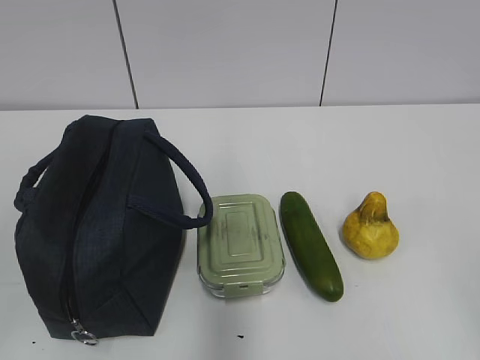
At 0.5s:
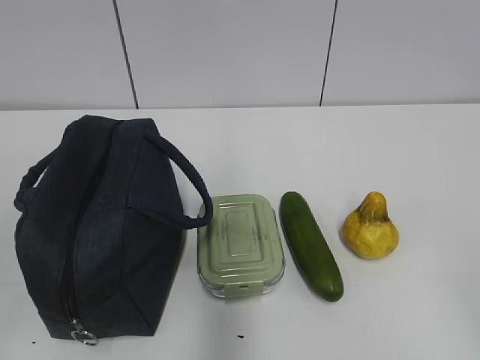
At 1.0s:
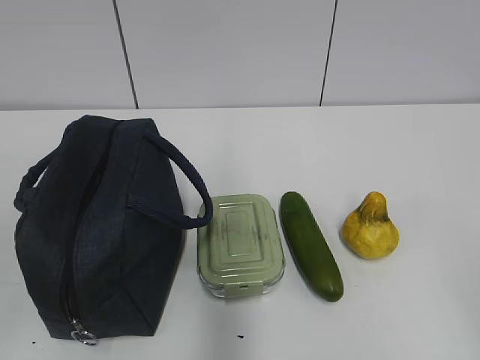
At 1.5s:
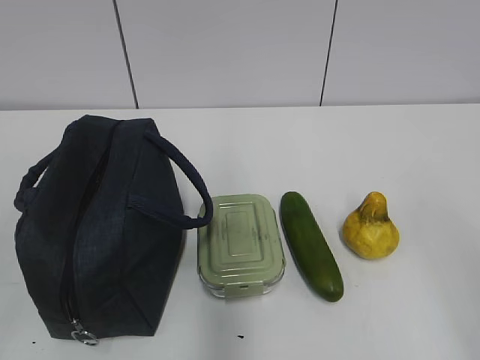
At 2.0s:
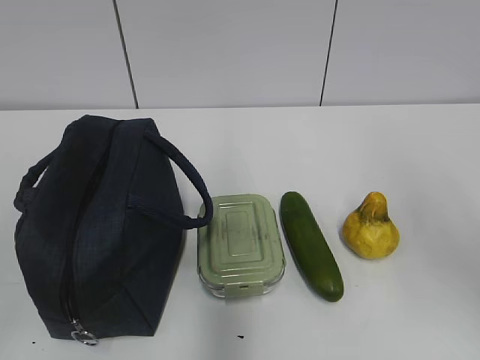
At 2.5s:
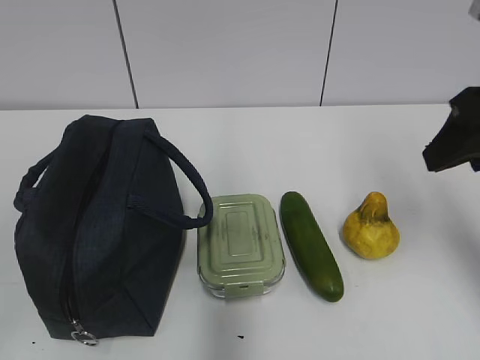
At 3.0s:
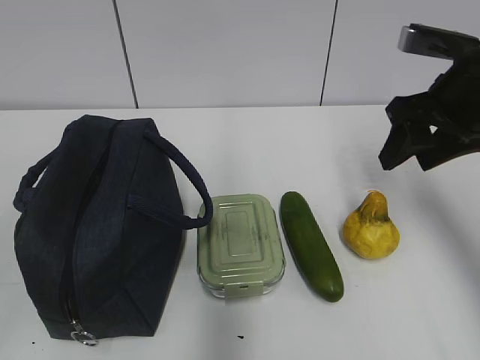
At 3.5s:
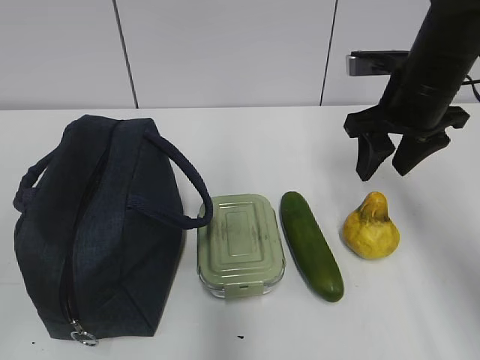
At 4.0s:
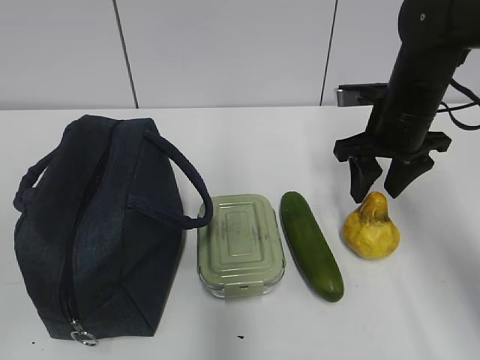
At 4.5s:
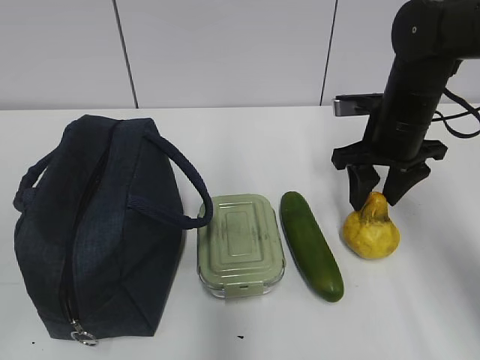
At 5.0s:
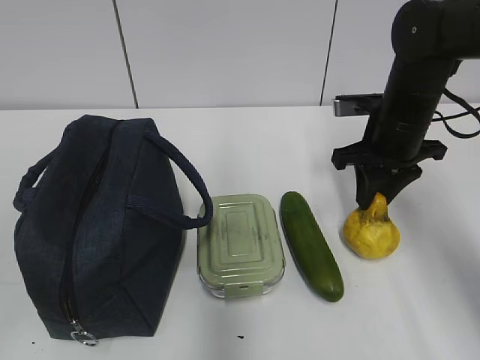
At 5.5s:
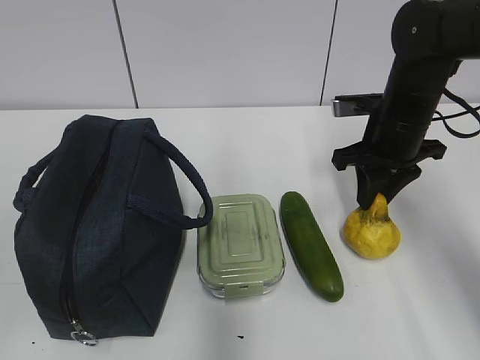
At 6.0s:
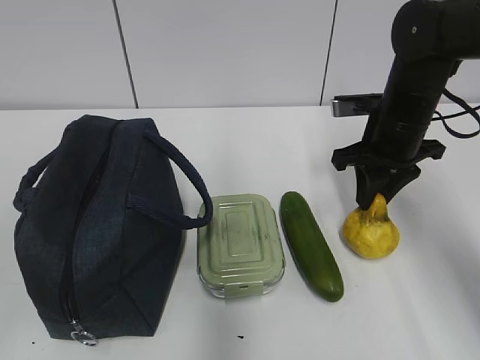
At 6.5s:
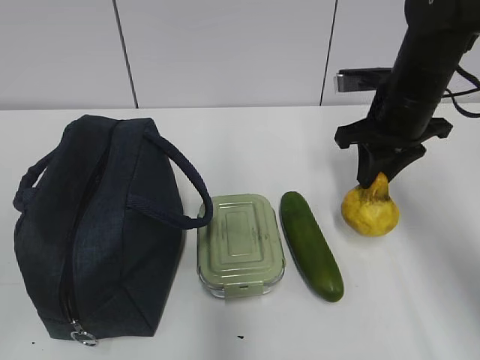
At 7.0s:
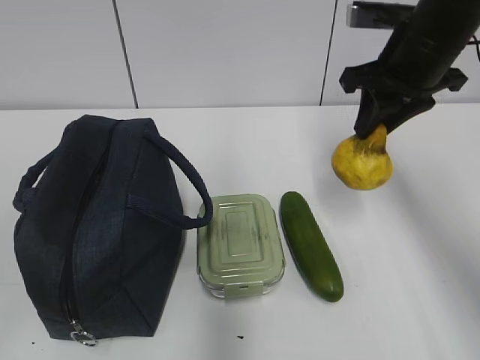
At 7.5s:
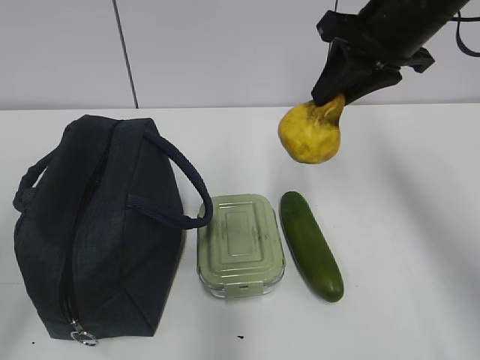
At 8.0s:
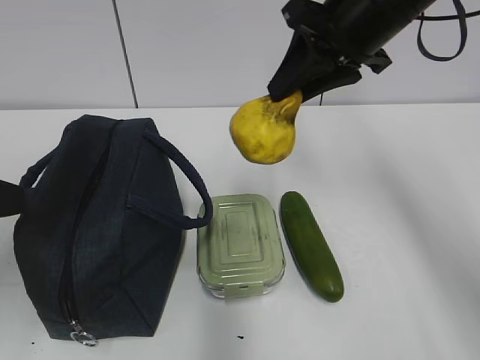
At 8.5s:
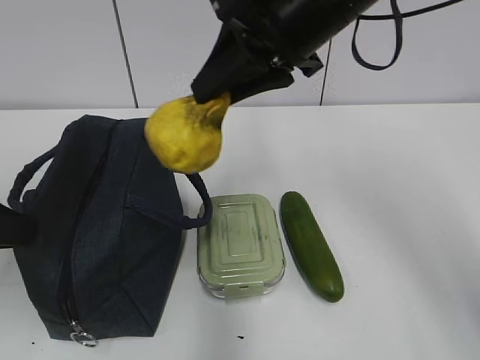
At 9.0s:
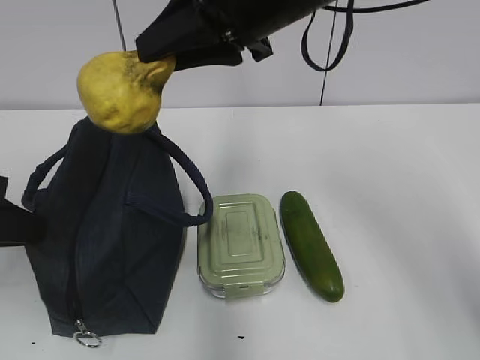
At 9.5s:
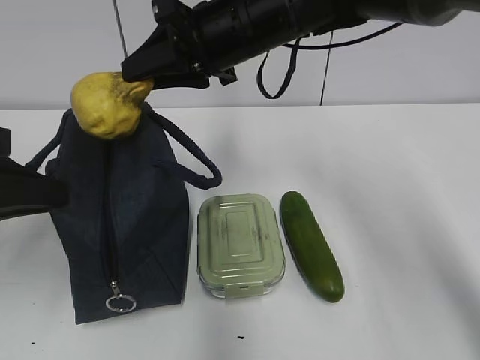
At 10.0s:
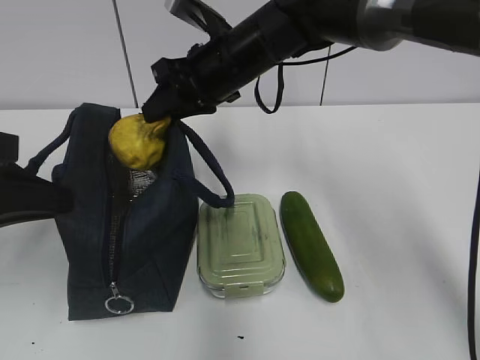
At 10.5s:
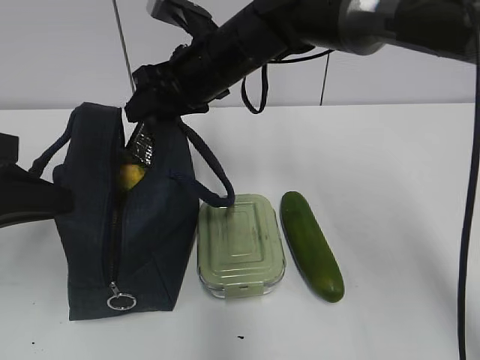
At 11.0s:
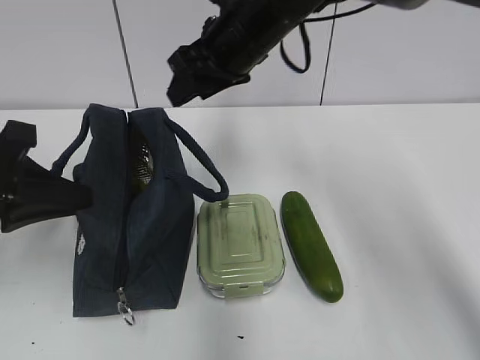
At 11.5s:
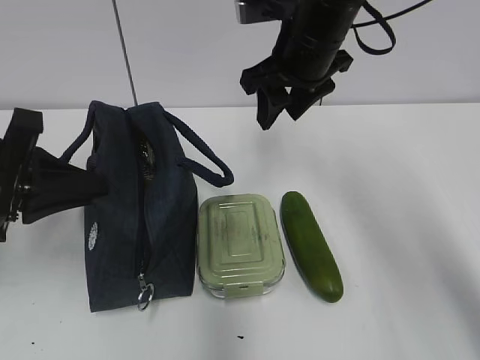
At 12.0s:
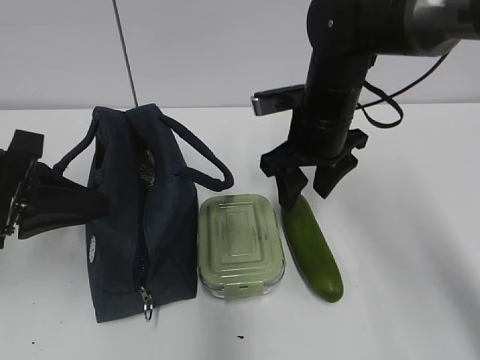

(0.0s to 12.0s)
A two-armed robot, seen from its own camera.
2.0s - 4.0s: The right gripper travels forward and downward by approximately 30 cm.
4.0s - 6.0s: The right gripper closes up.
6.0s - 8.0s: The right gripper heads upward and to the left, covering about 15 cm. The left gripper travels forward by approximately 15 cm.
8.0s - 10.0s: The left gripper ends up approximately 5 cm from where it was, and closes its fingers, while the right gripper shifts about 15 cm to the left, downward and forward.
10.0s - 12.0s: The right gripper goes approximately 10 cm to the right, and opens up.

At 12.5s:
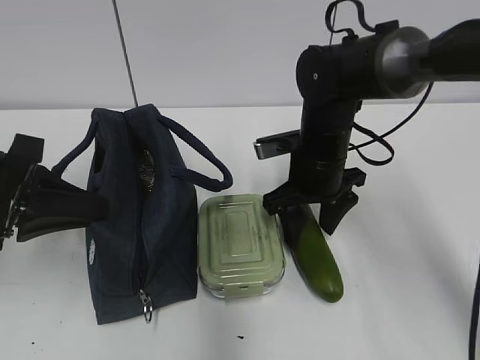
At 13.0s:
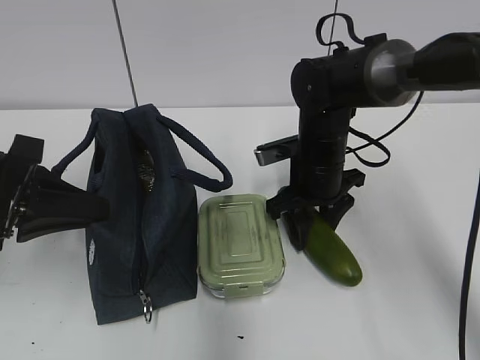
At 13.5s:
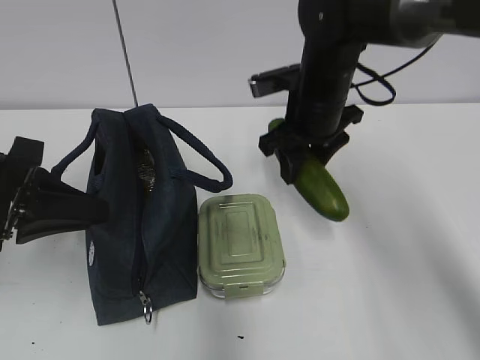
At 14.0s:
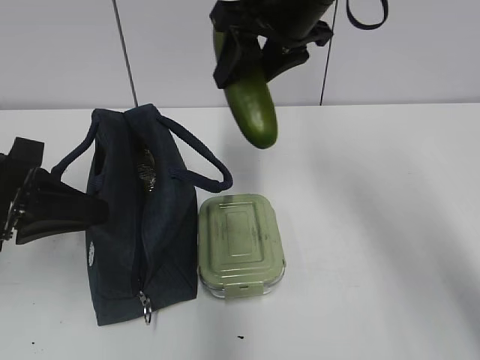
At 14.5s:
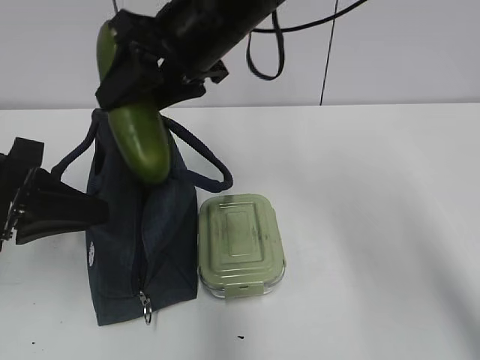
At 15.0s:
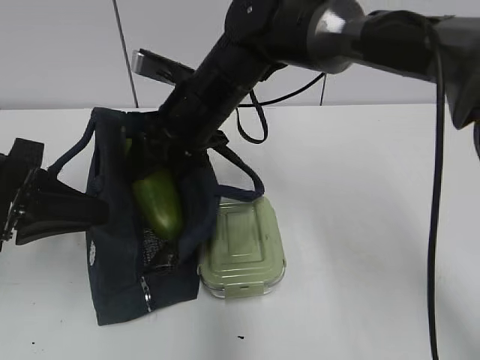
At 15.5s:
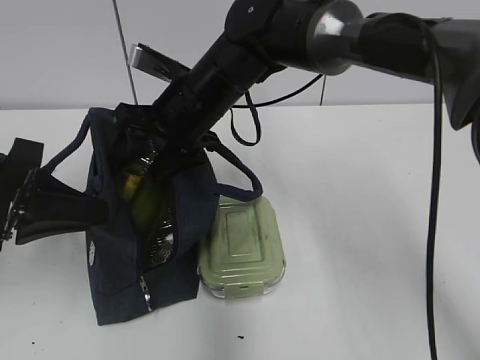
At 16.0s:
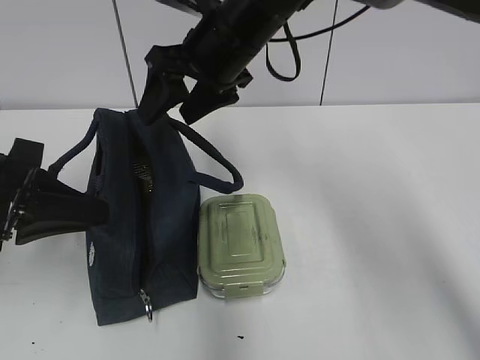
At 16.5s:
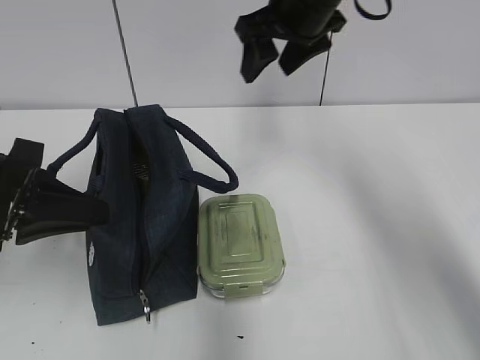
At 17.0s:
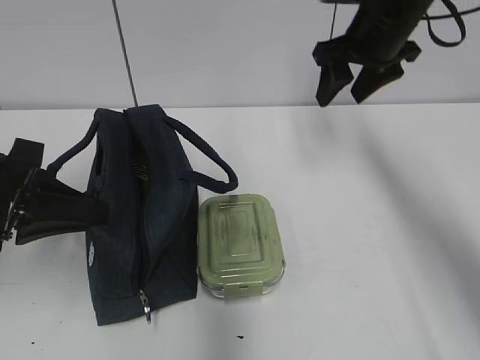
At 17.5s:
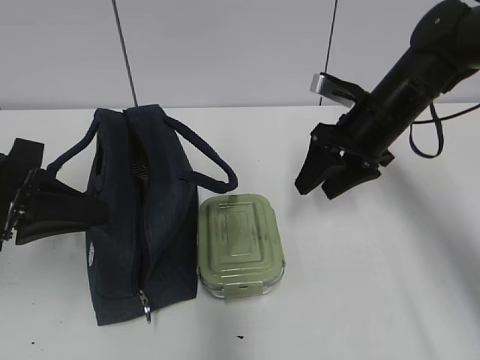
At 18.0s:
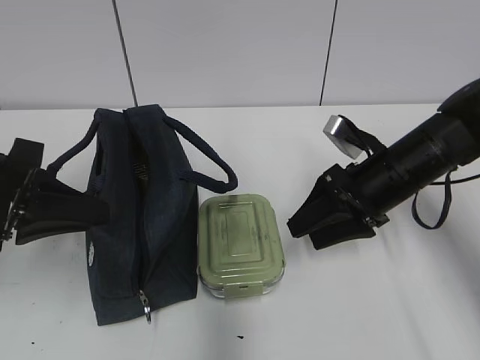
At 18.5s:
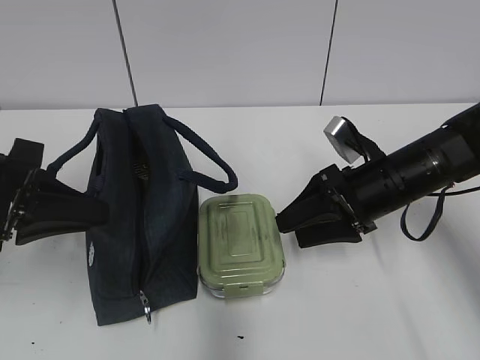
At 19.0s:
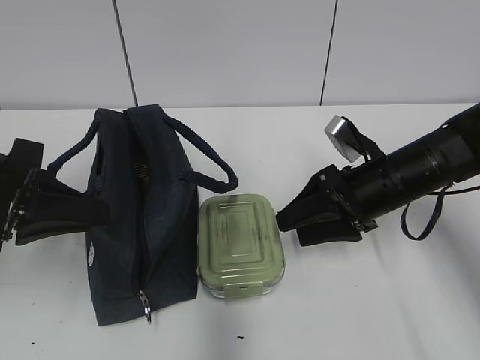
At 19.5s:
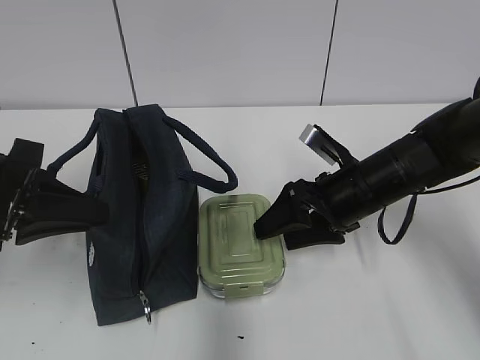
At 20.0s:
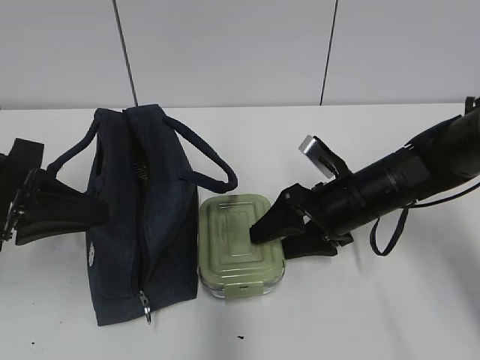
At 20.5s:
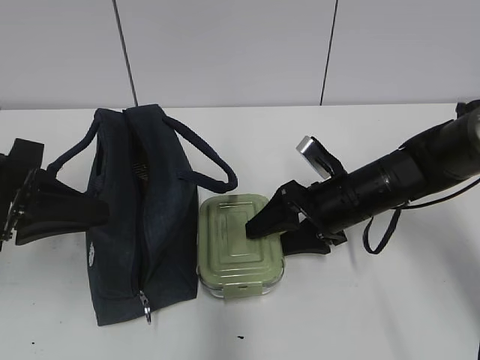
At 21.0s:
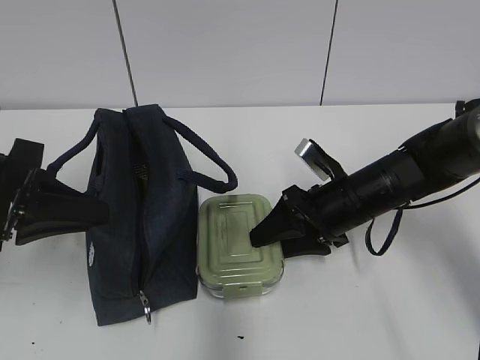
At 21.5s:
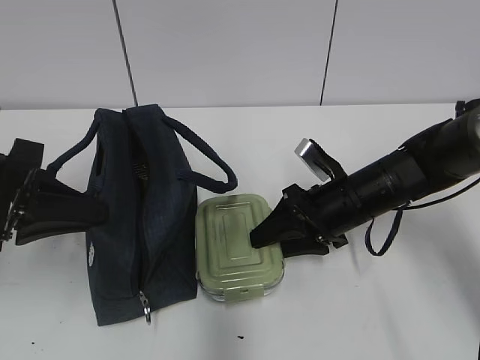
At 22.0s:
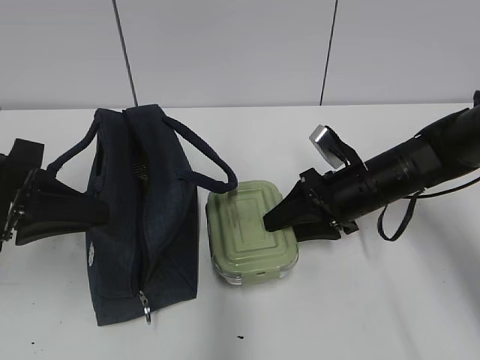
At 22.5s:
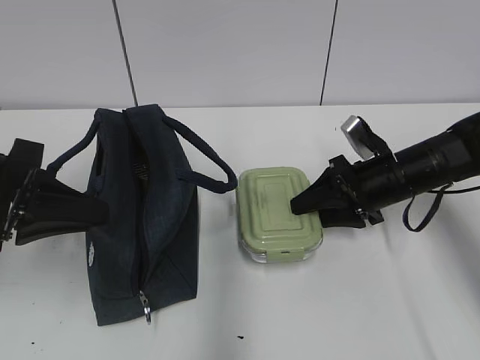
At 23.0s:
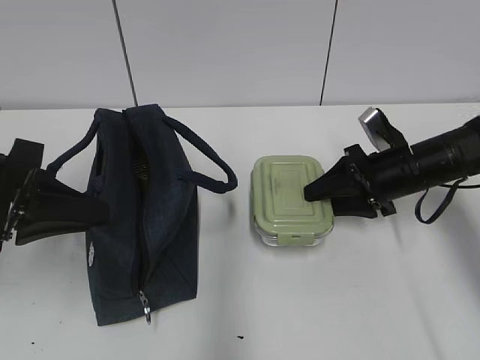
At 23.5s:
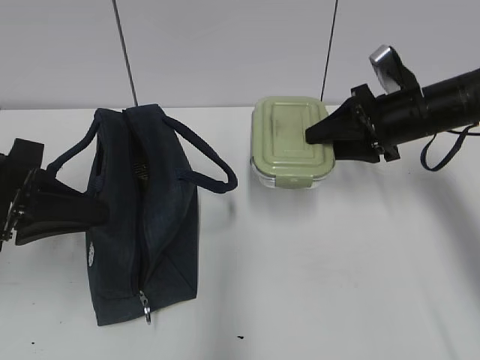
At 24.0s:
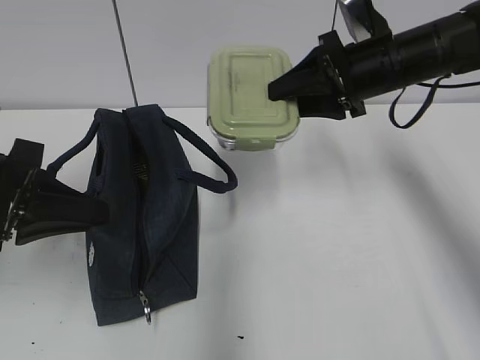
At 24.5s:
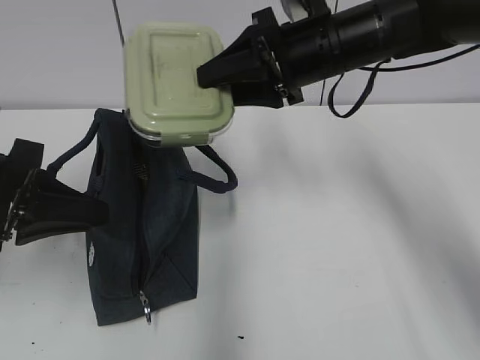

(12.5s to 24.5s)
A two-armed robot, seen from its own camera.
12.5s - 14.5s: The right gripper shifts some 20 cm upward and to the left.
14.5s - 16.5s: The right gripper shifts roughly 15 cm to the right and forward.
16.5s - 18.5s: The right gripper travels downward, backward and to the right by about 20 cm.
18.5s - 20.5s: The right gripper moves approximately 5 cm.
20.5s - 22.5s: The right gripper shifts about 5 cm to the right.
22.5s - 24.5s: The right gripper heads upward and to the left, covering about 20 cm.

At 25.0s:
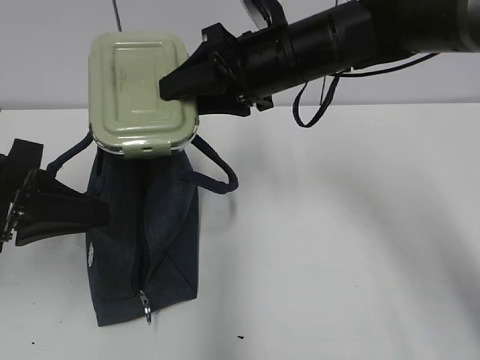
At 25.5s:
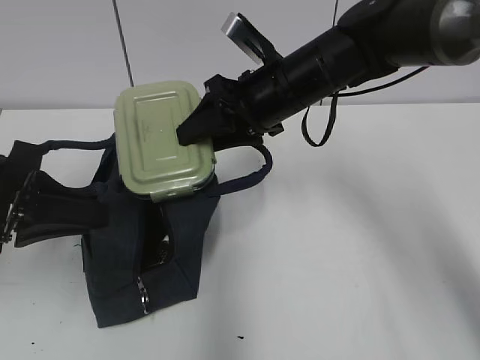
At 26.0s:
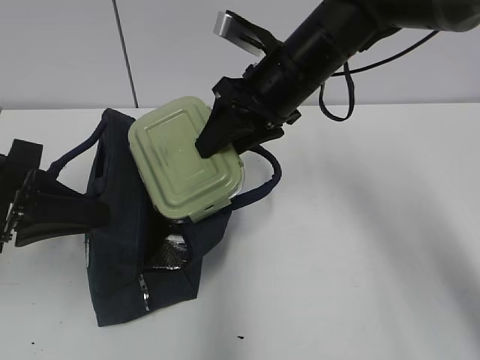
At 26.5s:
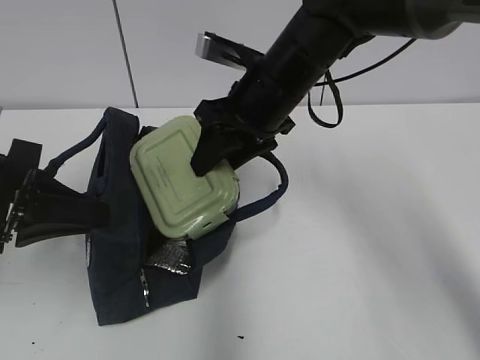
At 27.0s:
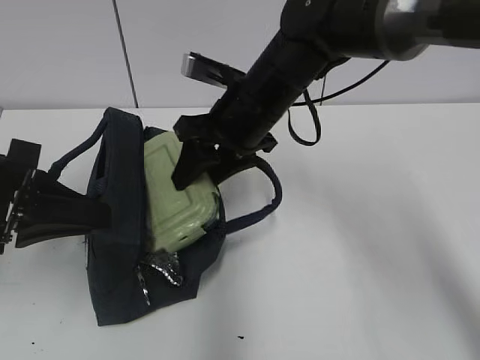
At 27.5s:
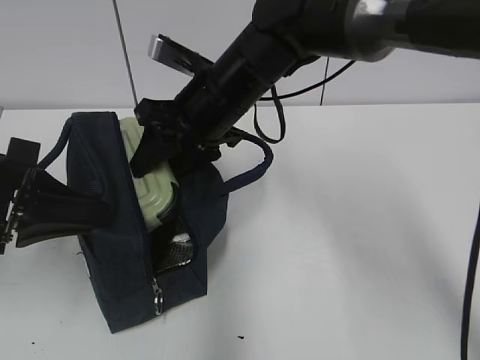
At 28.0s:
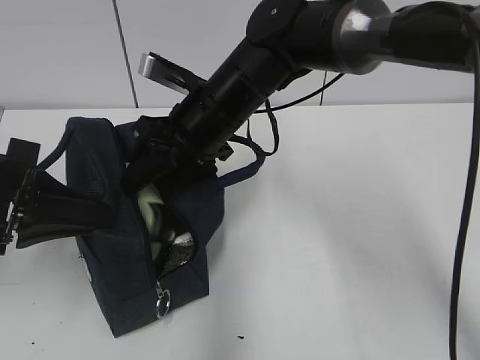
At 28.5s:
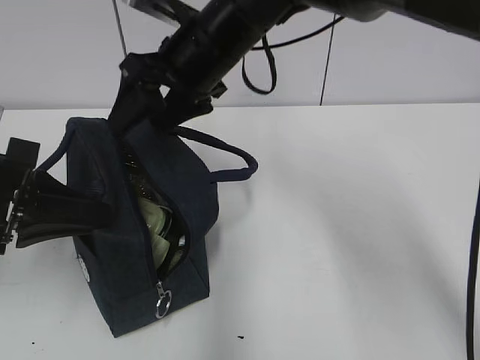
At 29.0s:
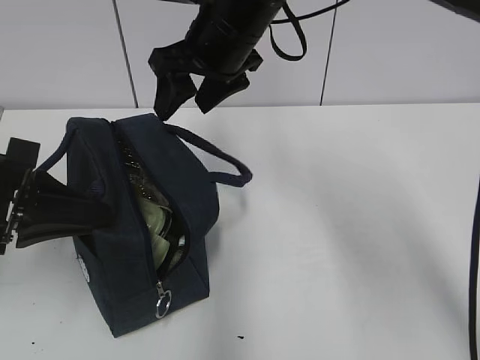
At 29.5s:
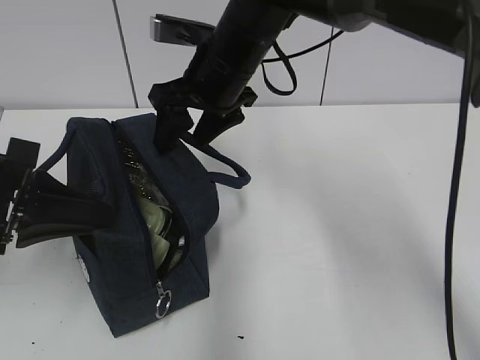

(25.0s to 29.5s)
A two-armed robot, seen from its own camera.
25.0s - 27.0s: The right gripper moves approximately 5 cm.
